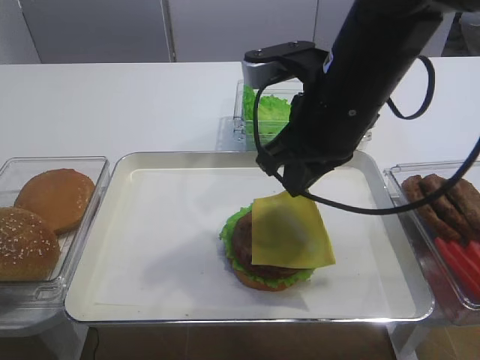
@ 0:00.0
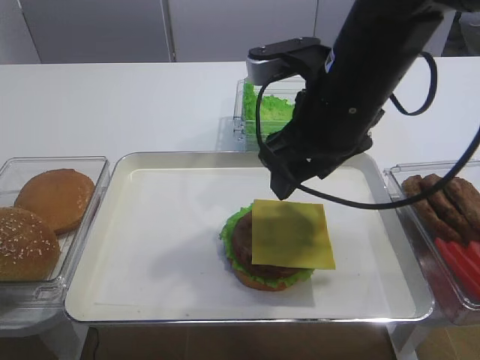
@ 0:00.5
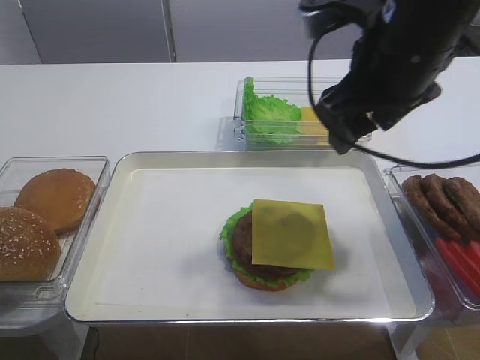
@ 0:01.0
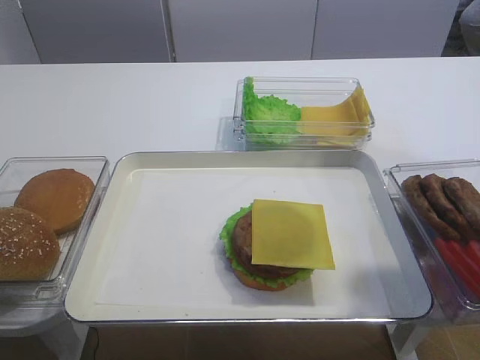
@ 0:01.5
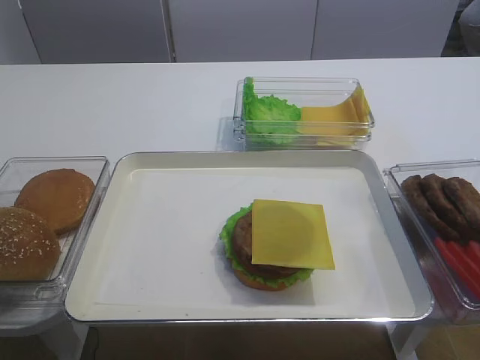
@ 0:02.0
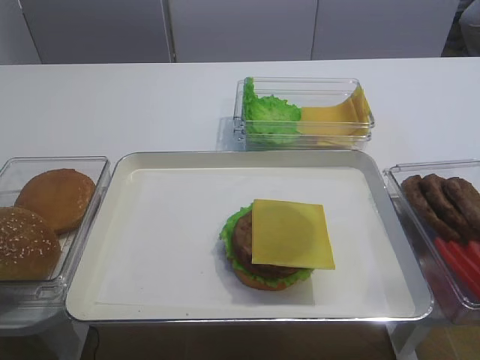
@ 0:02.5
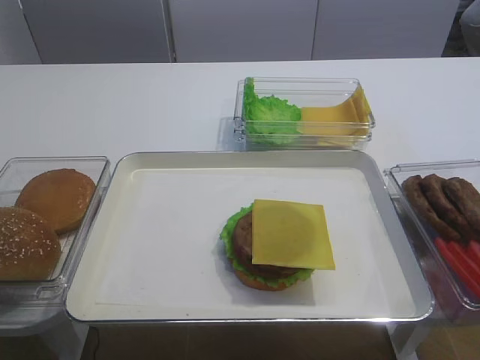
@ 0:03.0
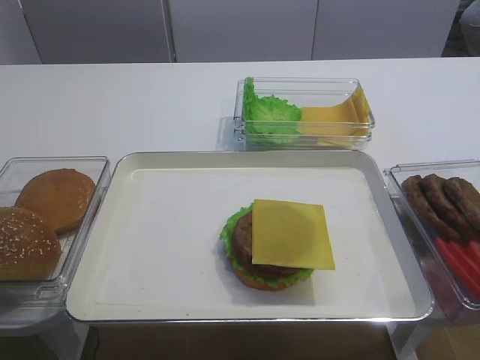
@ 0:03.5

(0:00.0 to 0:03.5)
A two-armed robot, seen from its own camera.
0:00.0 - 0:02.0: The right gripper goes about 25 cm to the right and backward, and opens its fingers.

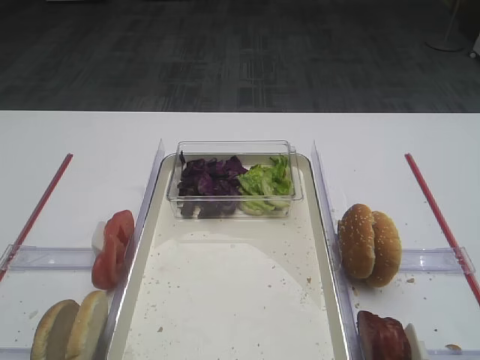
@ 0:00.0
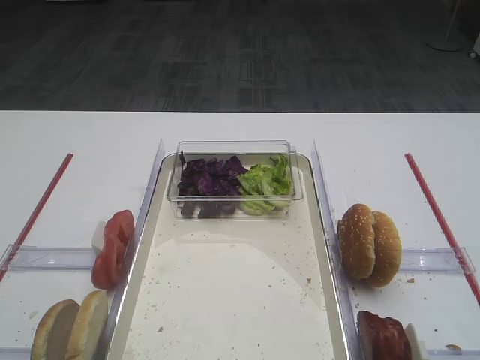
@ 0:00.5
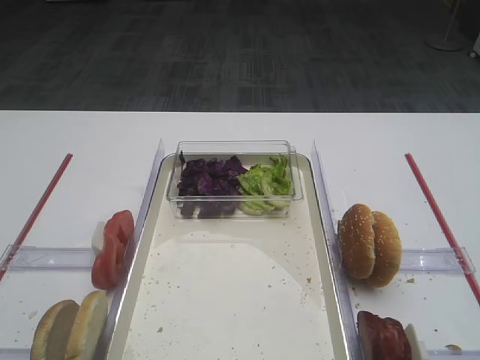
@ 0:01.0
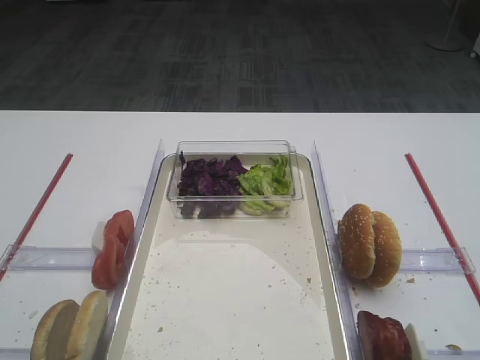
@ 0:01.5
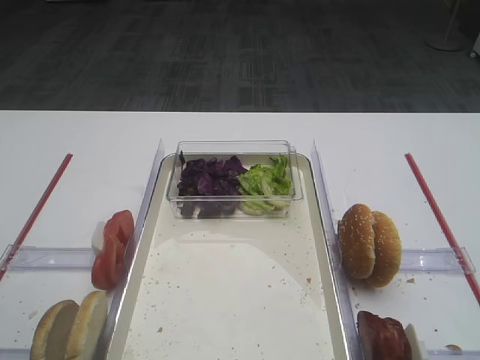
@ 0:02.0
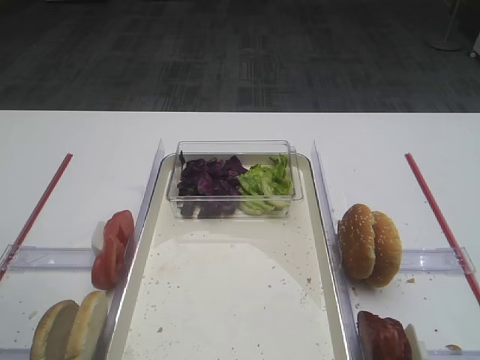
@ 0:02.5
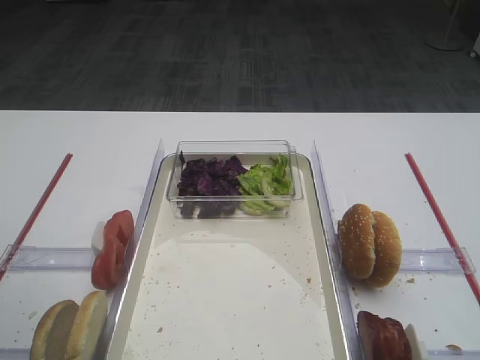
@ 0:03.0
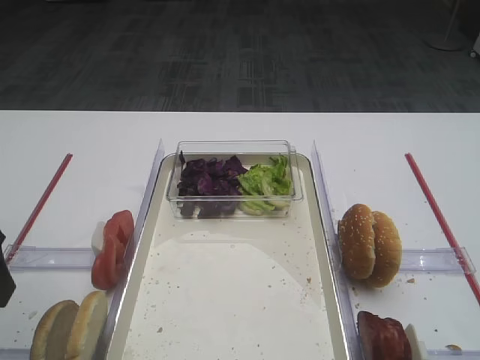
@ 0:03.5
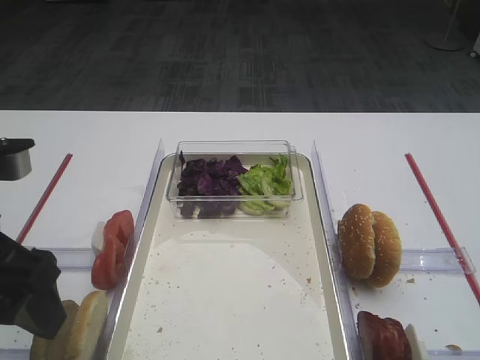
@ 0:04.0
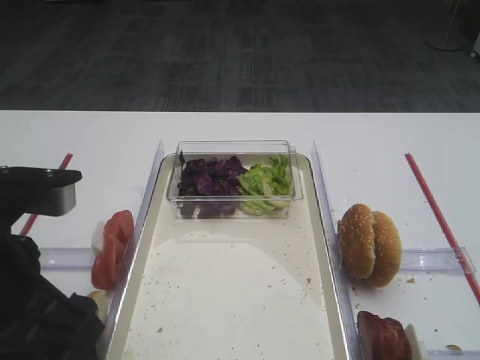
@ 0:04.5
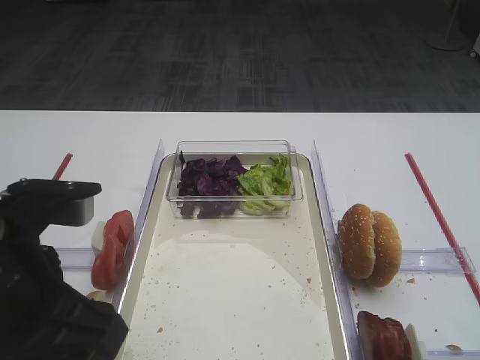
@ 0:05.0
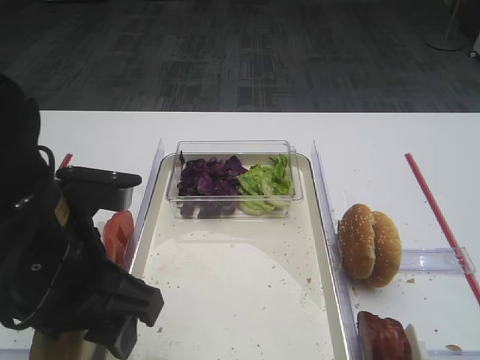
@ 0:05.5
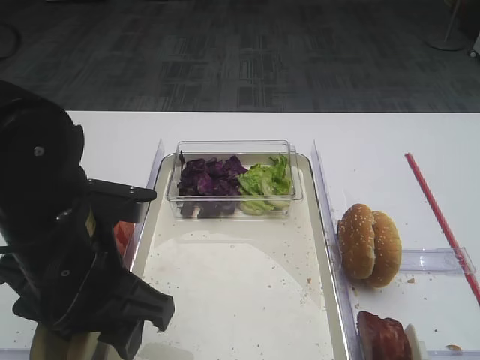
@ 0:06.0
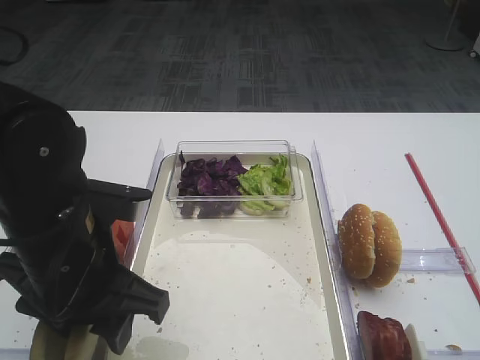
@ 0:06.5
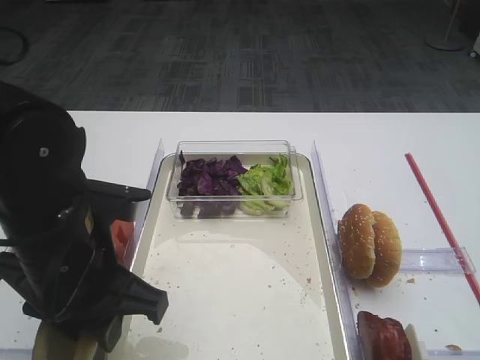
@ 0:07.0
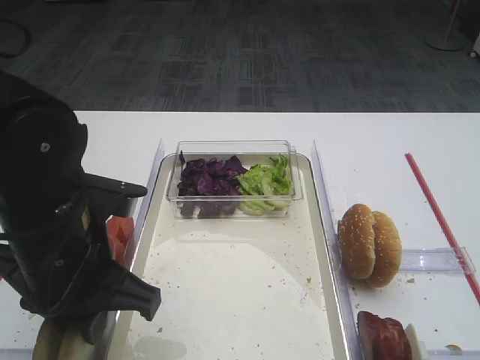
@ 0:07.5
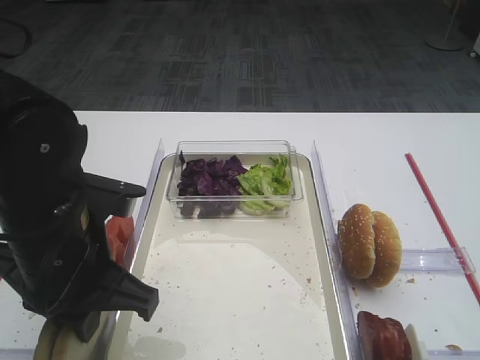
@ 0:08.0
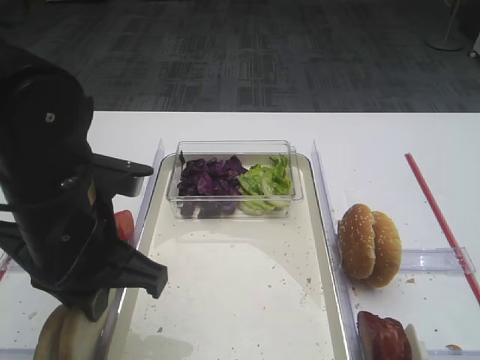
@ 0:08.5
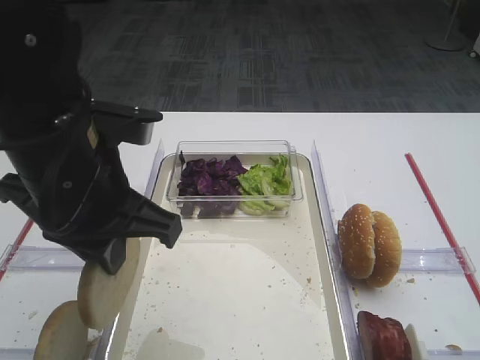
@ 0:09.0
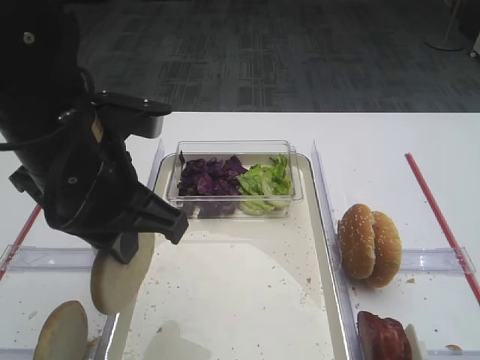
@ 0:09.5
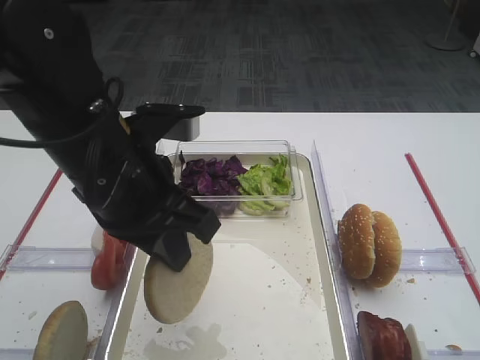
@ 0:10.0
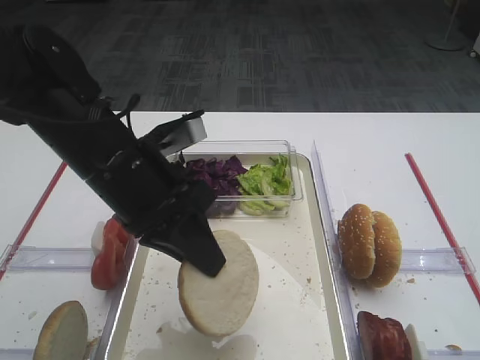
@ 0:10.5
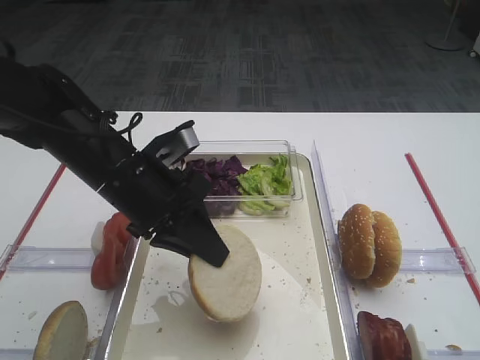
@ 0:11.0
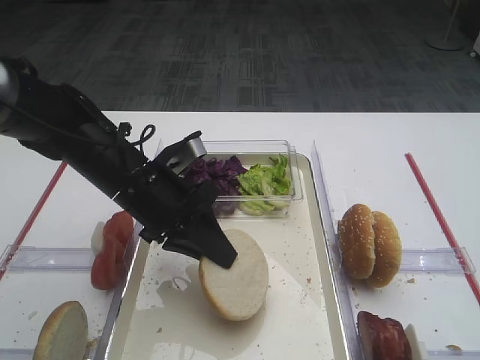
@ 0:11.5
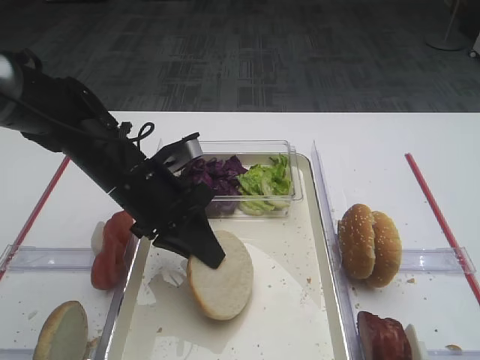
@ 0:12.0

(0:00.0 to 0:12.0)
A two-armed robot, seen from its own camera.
Step, 0:00.0 - 0:08.5: Pick up the bread slice with the left gripper.
0:02.0 - 0:04.0: The left gripper is displaced to the right by approximately 5 cm.
0:04.0 - 0:06.0: The left gripper moves to the right and downward, about 10 cm.
0:06.0 - 0:08.0: The left gripper closes.
0:08.0 - 0:10.0: The left gripper shifts by some 5 cm.
0:10.0 - 0:12.0: The left gripper heads downward and forward, covering roughly 10 cm.

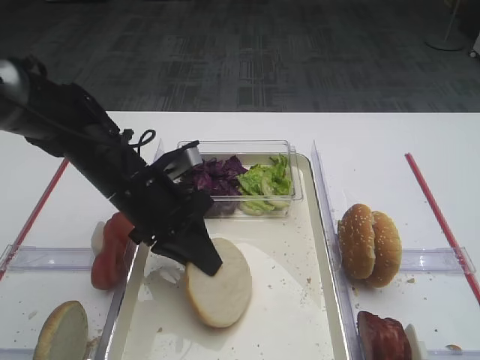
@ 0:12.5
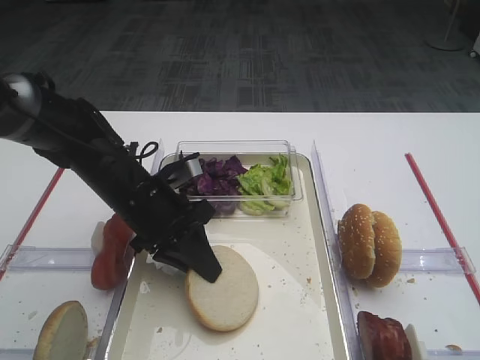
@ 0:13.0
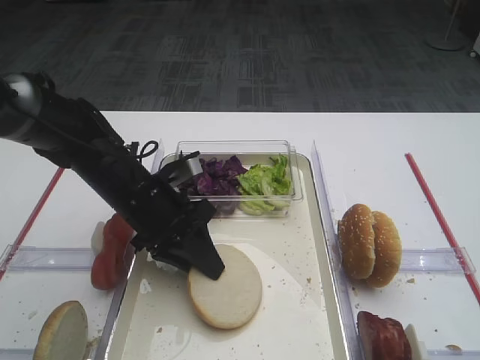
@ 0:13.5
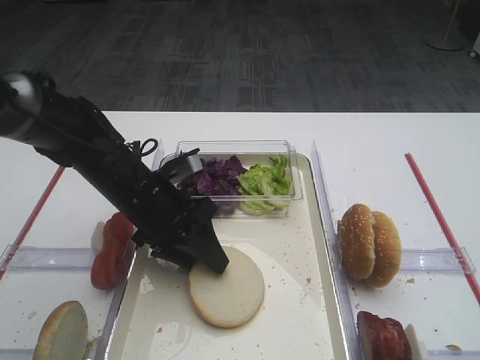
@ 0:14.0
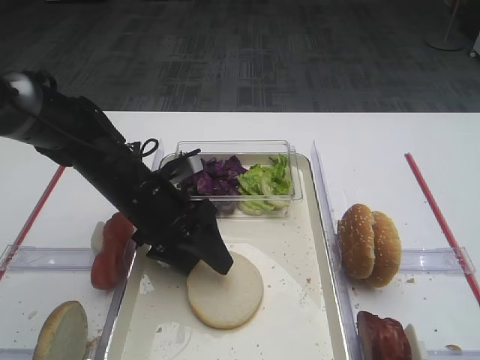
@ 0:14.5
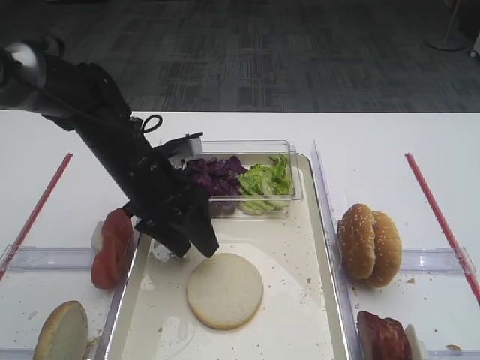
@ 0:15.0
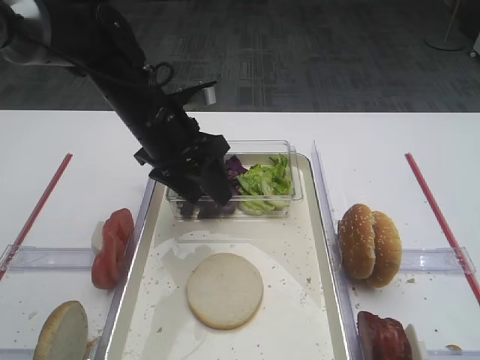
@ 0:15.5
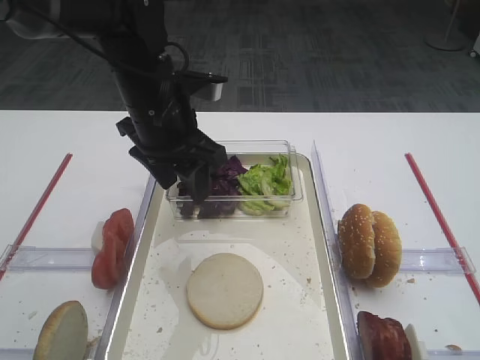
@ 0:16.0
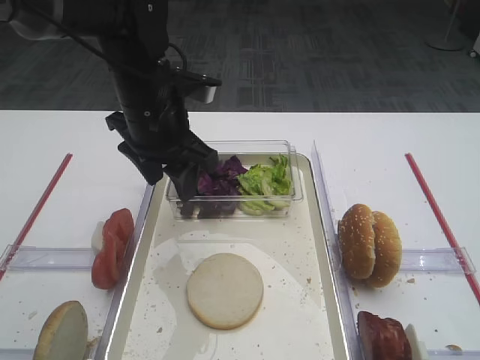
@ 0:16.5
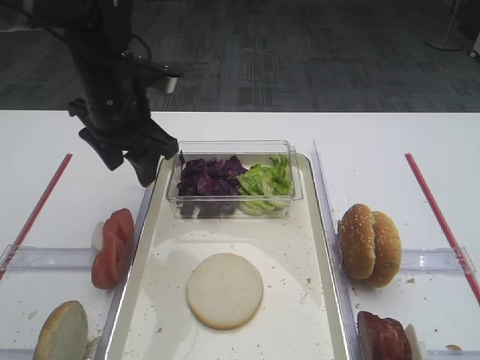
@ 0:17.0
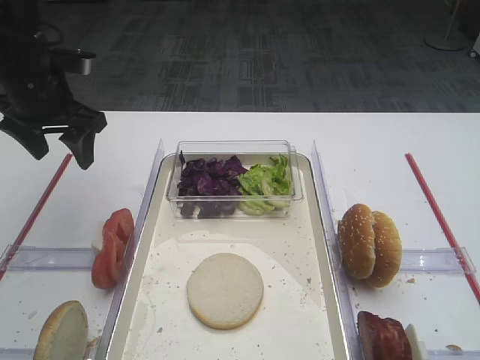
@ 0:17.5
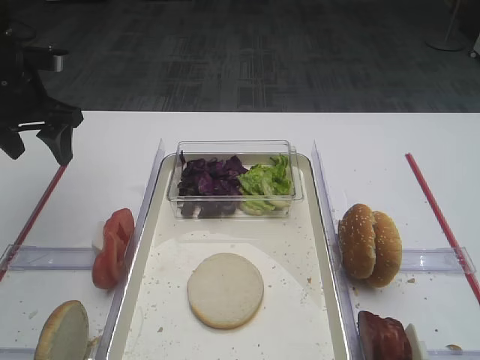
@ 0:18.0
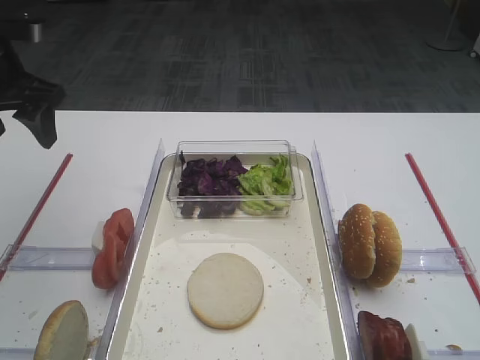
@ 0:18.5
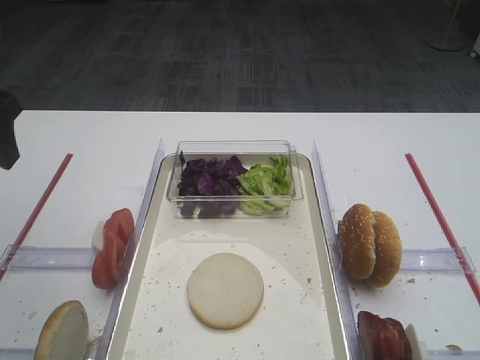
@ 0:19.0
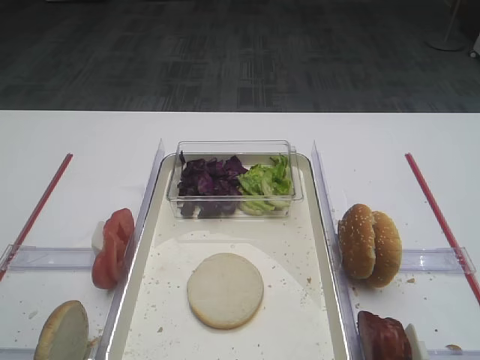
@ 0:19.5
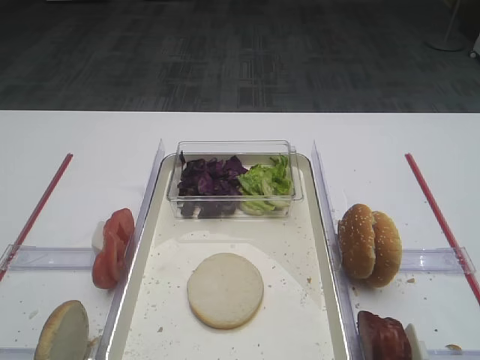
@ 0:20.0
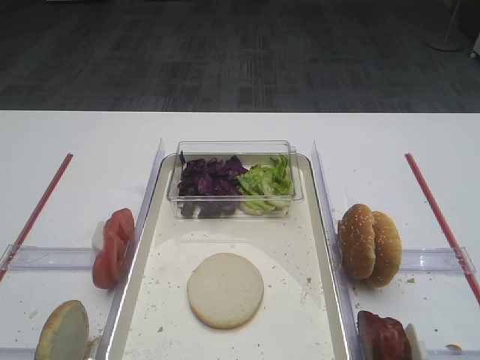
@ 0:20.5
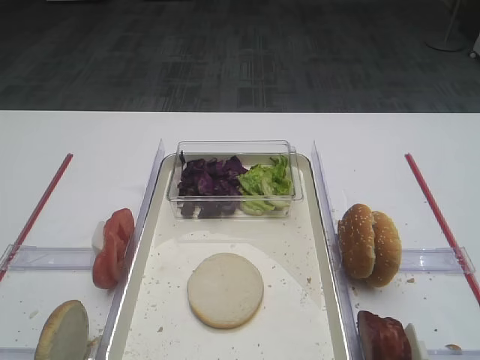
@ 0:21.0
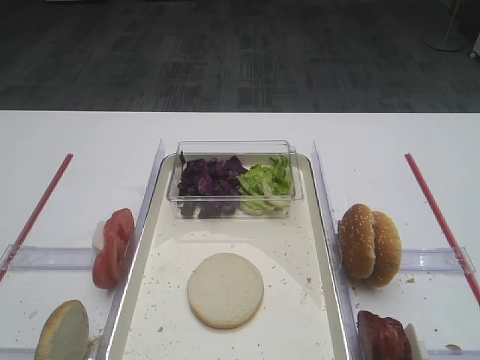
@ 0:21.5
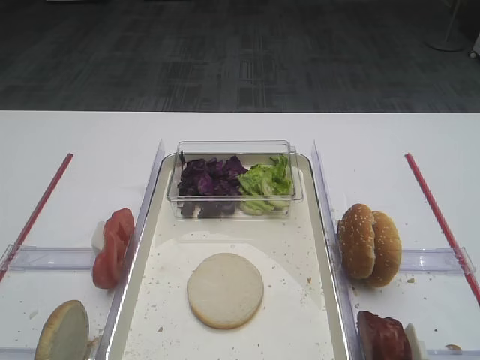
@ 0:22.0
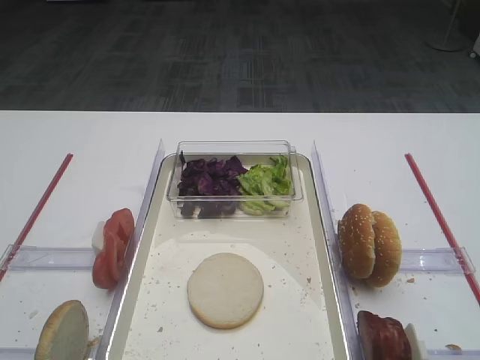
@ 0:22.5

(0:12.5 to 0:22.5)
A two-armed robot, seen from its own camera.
Step, 0:12.5 - 0:14.5: Place the bread slice on the tray with the left gripper.
0:12.5 - 0:14.5: The left gripper opens its fingers.
0:14.5 - 0:16.5: The left gripper goes approximately 10 cm upward.
0:16.5 - 0:18.5: The left gripper moves to the left, approximately 20 cm.
0:18.5 - 0:20.5: The left gripper moves backward, approximately 35 cm.
